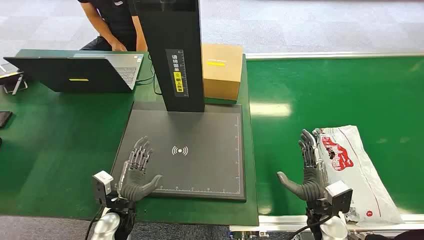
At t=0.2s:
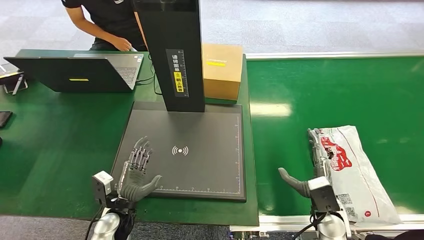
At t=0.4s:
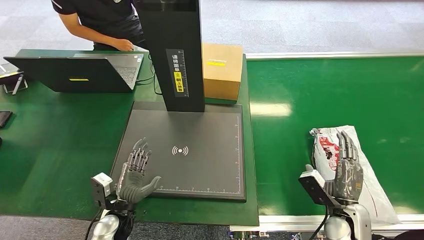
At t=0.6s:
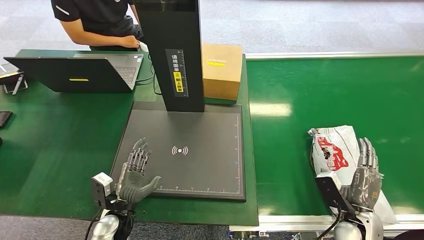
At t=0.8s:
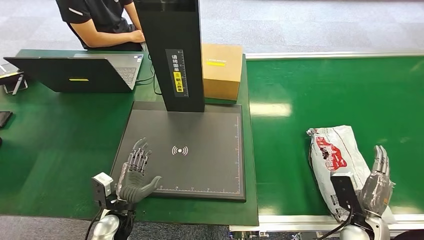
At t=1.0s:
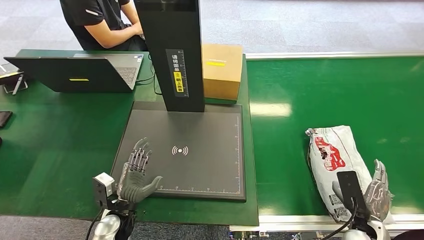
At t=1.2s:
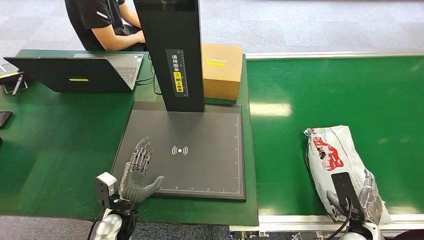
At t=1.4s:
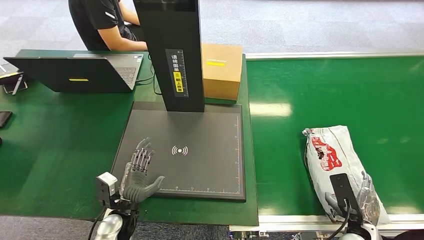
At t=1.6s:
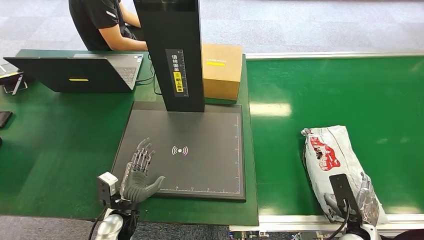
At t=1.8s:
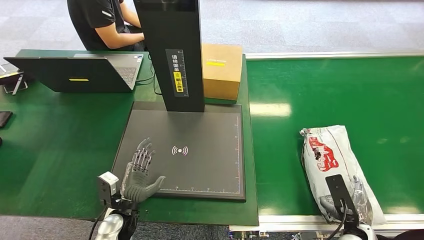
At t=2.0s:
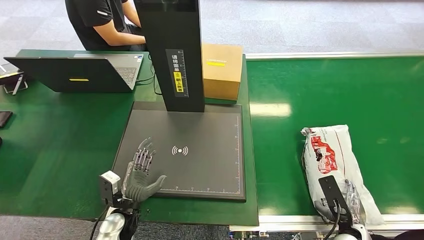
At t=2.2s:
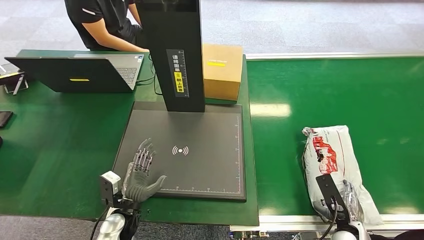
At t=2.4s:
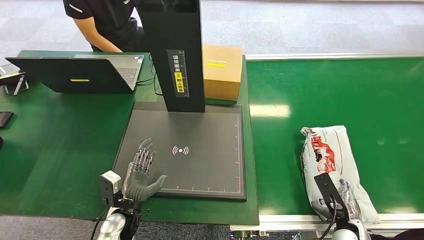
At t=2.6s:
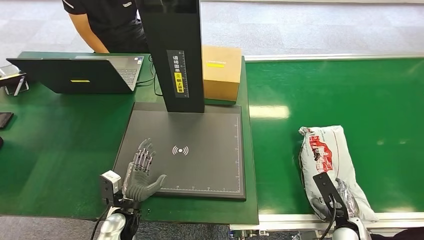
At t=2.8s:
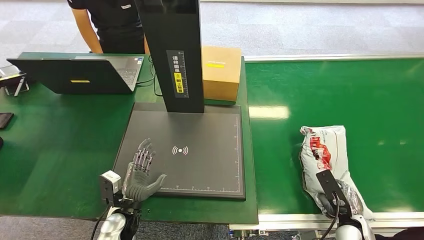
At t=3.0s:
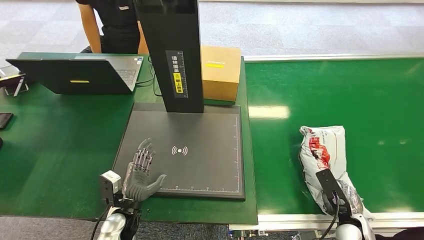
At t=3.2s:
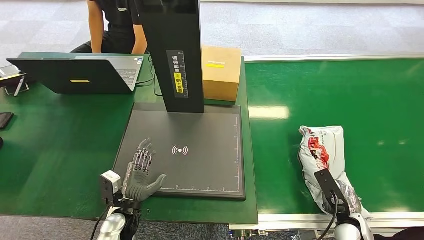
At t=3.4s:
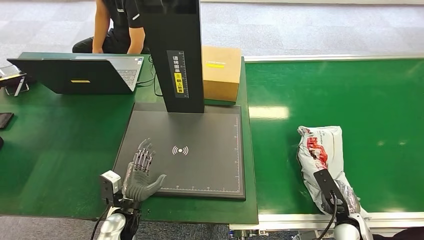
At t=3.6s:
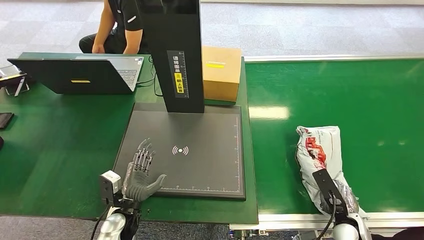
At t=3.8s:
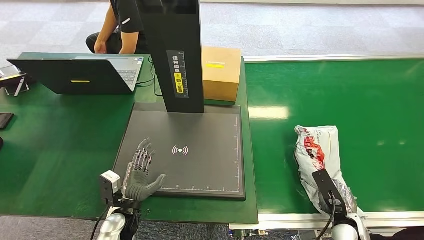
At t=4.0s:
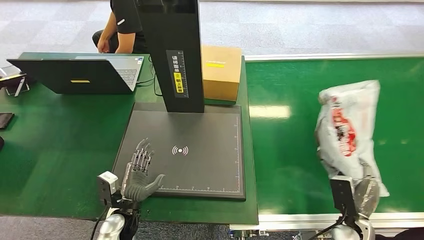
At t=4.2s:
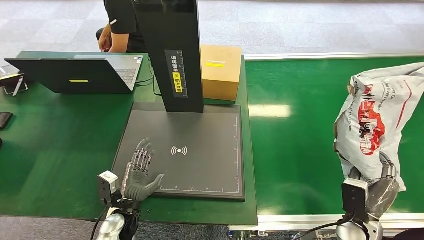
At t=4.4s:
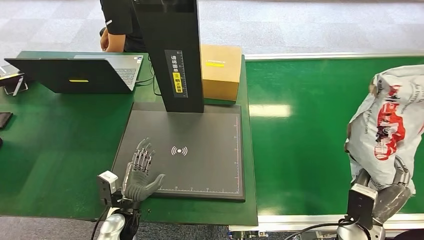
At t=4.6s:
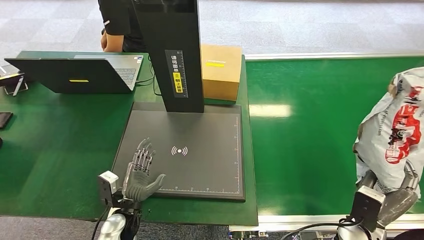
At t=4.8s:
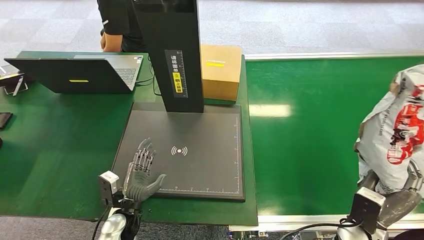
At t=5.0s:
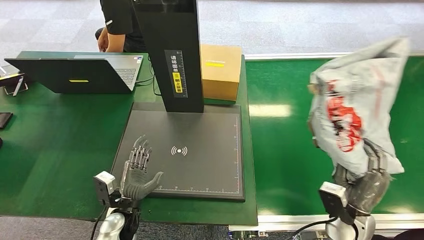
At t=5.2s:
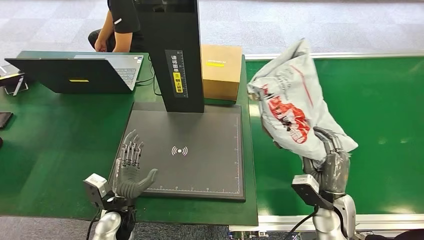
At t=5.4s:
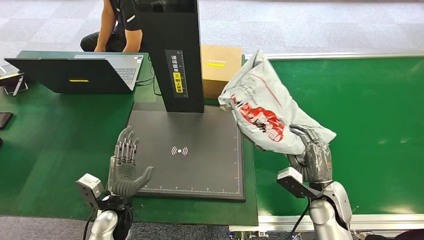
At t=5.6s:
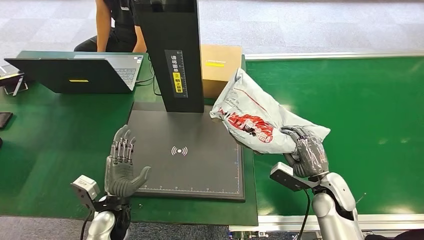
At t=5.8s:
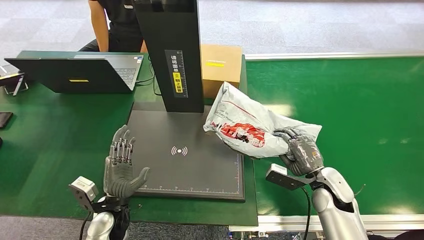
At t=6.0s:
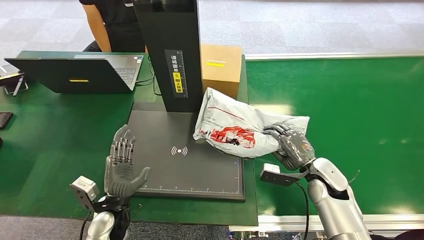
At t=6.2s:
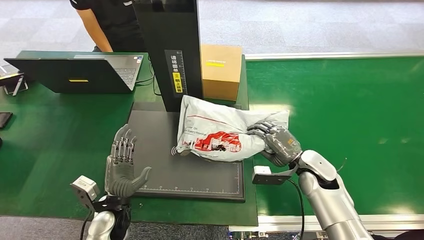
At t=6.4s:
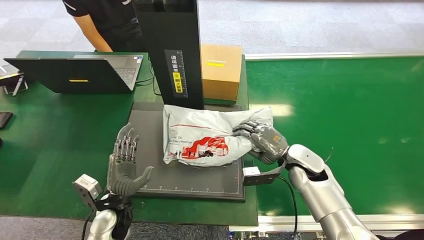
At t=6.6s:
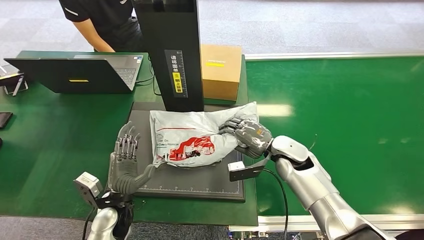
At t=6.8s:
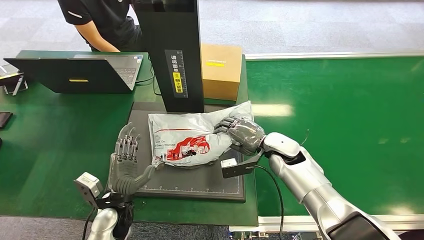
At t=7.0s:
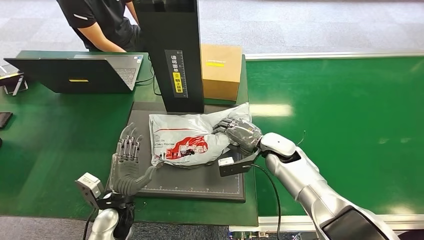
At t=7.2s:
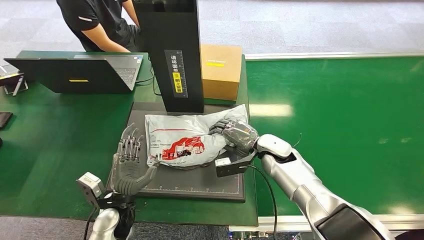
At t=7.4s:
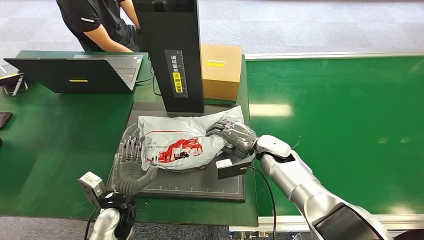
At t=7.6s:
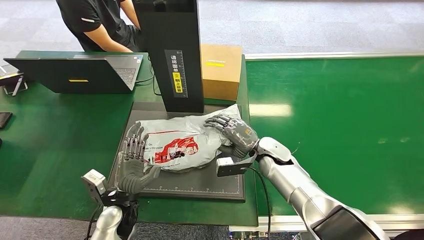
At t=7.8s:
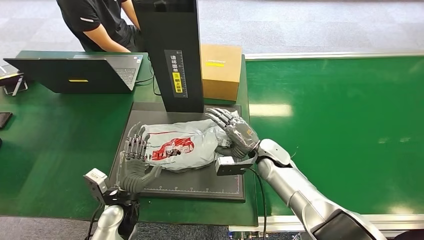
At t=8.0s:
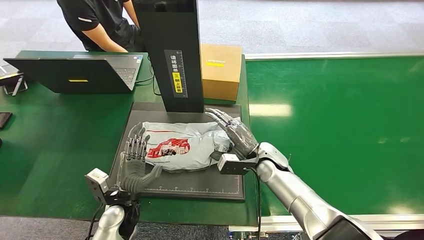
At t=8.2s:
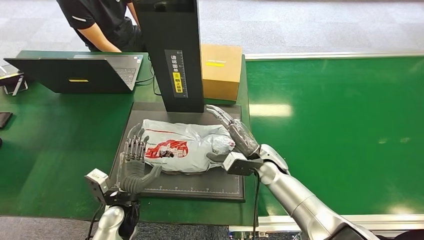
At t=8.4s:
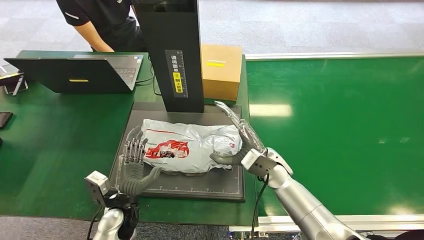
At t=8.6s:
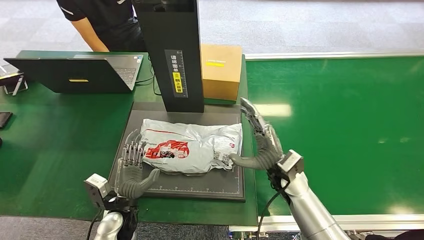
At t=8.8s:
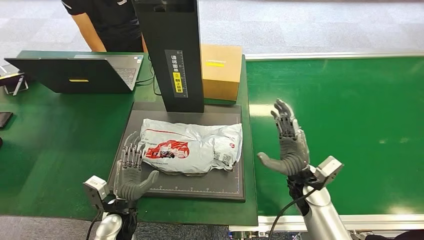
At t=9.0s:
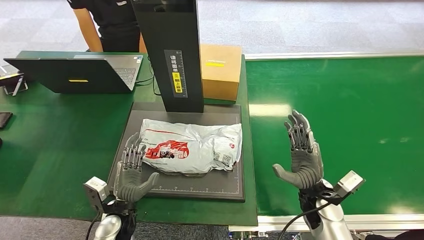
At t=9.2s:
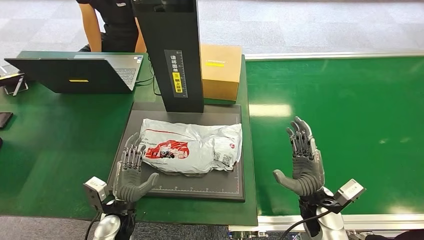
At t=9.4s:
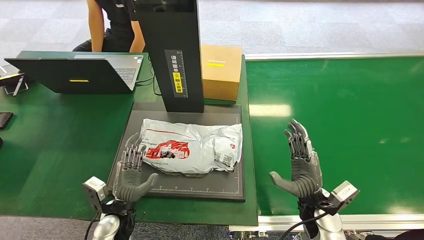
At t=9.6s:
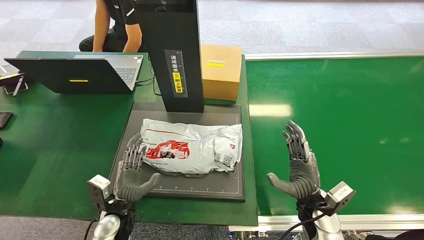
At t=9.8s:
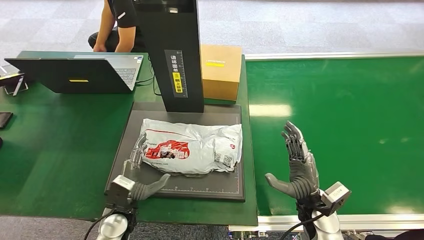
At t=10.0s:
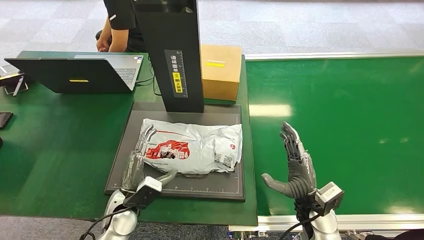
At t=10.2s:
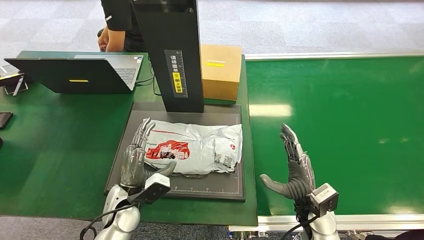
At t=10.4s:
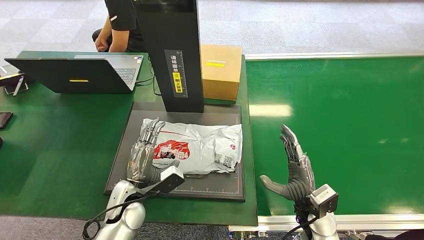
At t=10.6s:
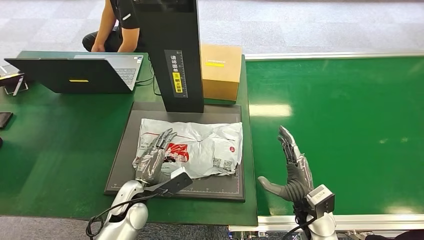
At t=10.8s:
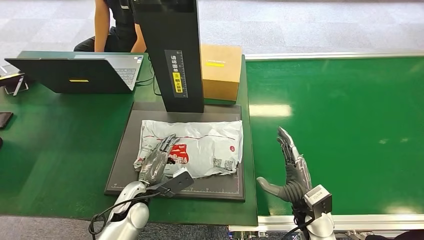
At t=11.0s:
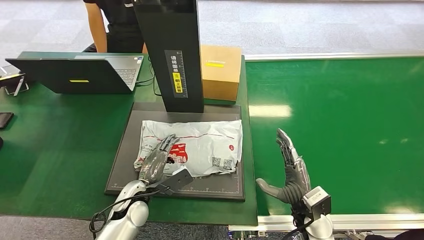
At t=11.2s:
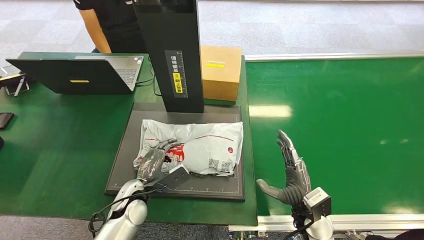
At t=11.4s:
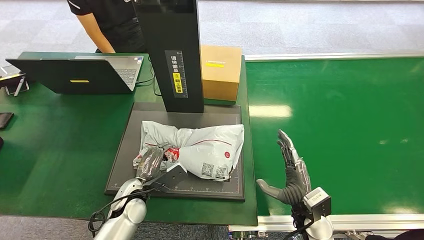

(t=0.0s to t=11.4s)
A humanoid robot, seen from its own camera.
Task of the whole recording: Weigh the package on the weighing device and place it in the left basket.
Step, t=0.0s - t=4.4s: Pick up the package from the conveyor belt.
Step, t=4.8s - t=9.0s: Place the package onto the inbound machine.
t=7.2s - t=8.6s: The right hand travels backward by approximately 10 cm.
t=8.6s - t=10.0s: The right hand is displaced backward and to the right by roughly 10 cm.

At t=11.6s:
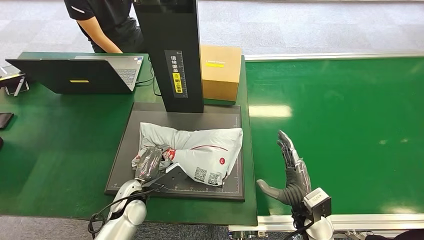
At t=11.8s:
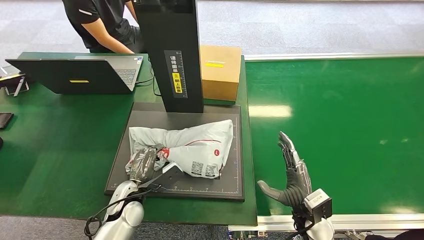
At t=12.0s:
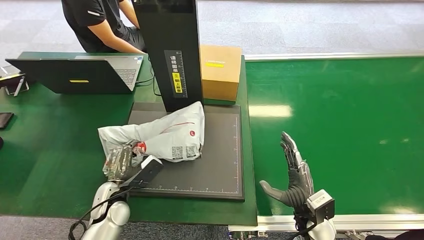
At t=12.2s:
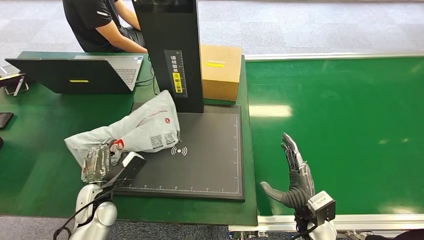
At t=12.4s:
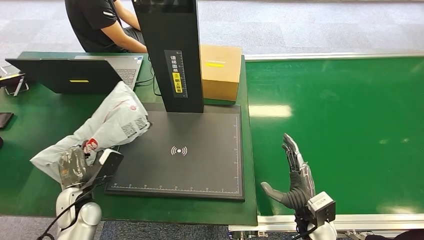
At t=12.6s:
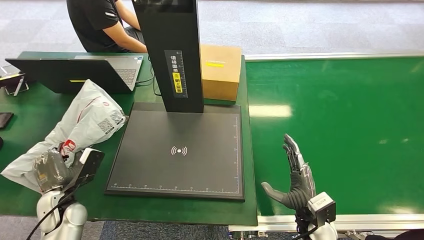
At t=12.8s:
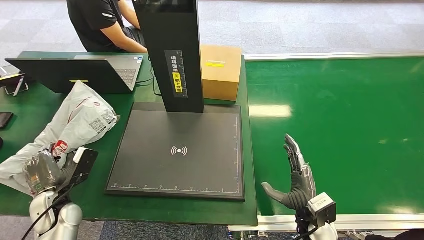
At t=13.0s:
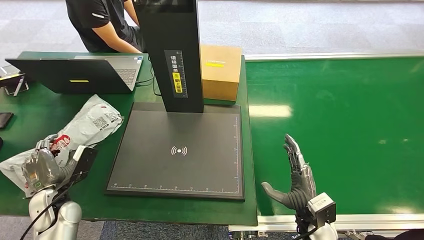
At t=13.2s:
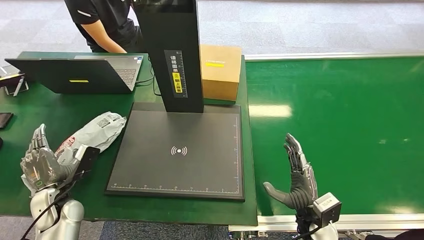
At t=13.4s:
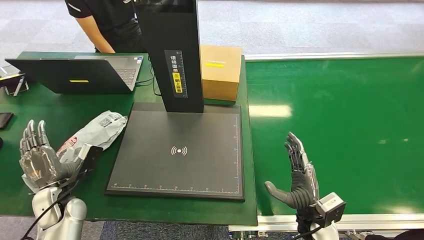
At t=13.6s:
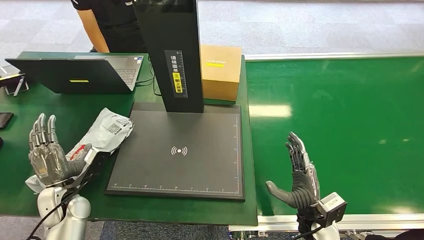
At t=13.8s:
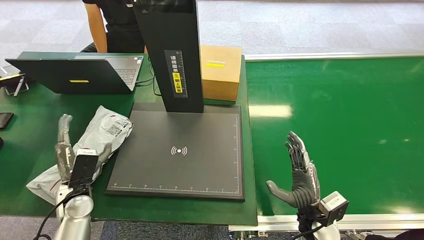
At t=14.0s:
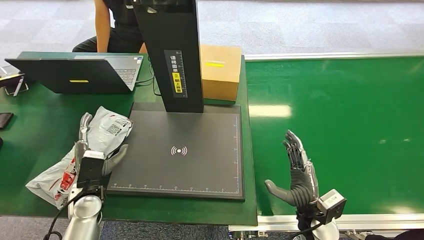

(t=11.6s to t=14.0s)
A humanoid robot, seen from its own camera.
Task of the whole recording: Weigh the package on the weighing device and place it in the left basket.
Step, t=12.4s - t=14.0s: Place the package into the parcel locker.
t=12.8s - t=14.0s: The left hand moves to the right, about 10 cm.
